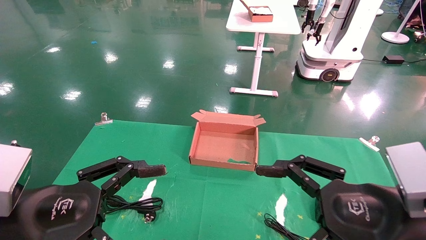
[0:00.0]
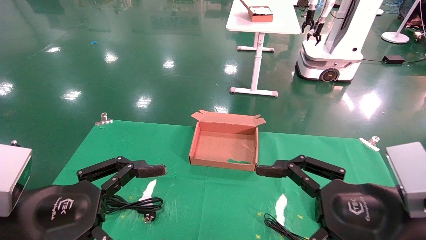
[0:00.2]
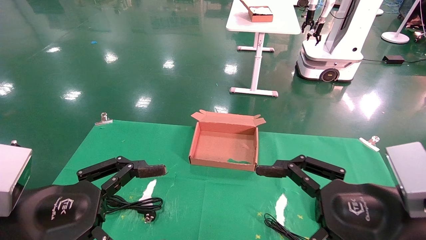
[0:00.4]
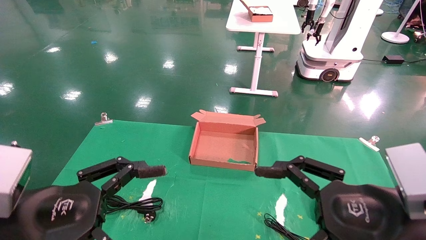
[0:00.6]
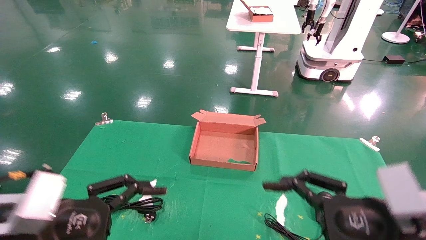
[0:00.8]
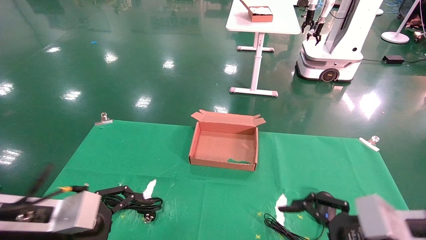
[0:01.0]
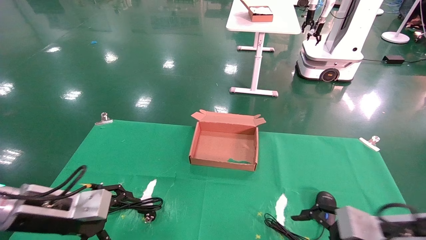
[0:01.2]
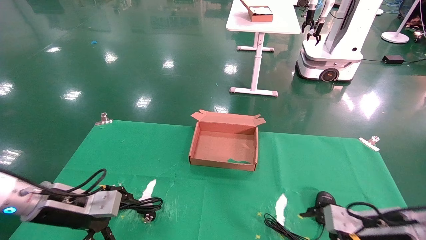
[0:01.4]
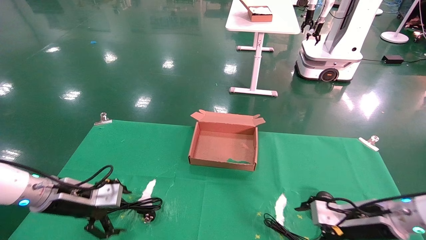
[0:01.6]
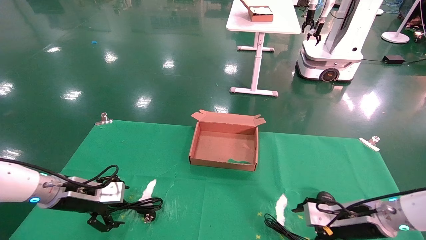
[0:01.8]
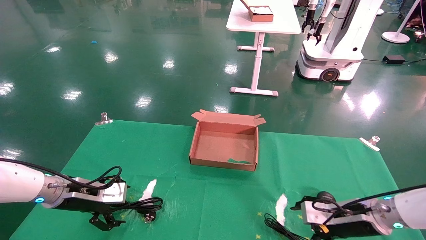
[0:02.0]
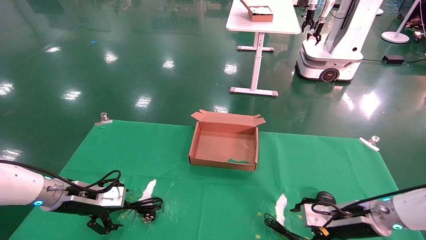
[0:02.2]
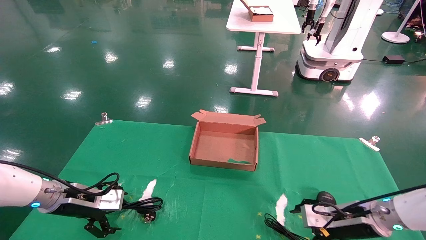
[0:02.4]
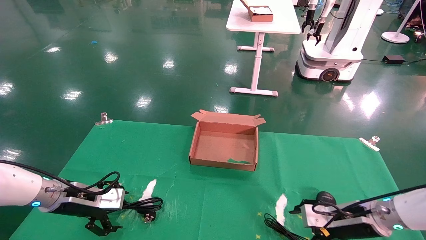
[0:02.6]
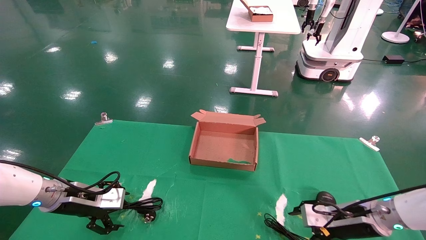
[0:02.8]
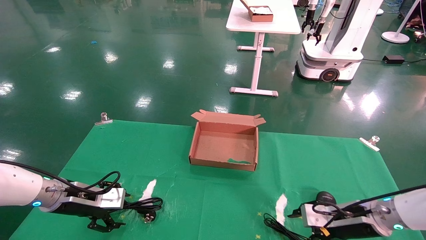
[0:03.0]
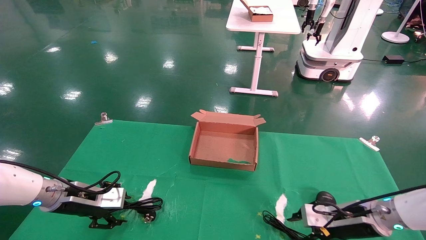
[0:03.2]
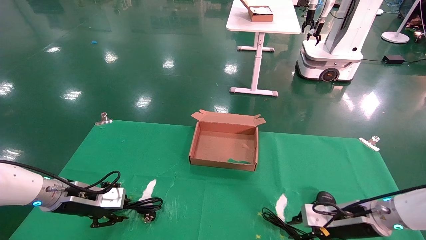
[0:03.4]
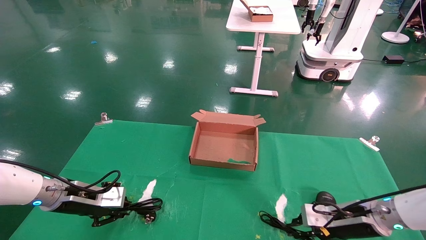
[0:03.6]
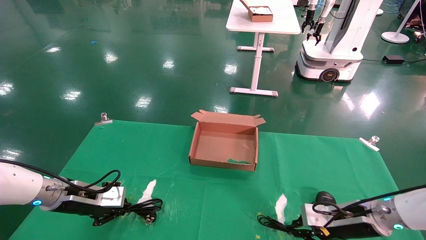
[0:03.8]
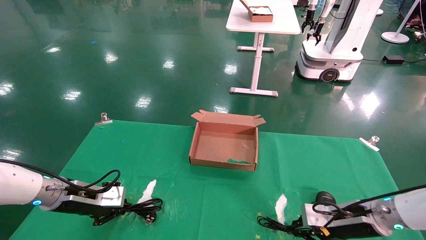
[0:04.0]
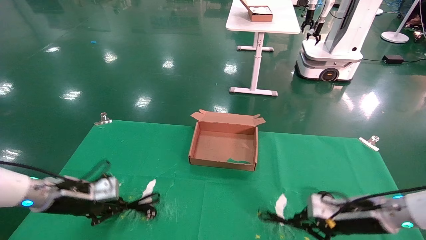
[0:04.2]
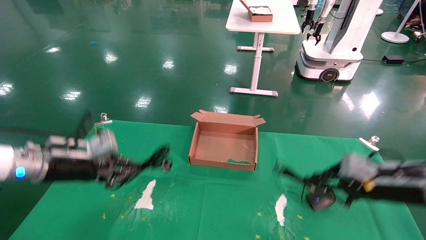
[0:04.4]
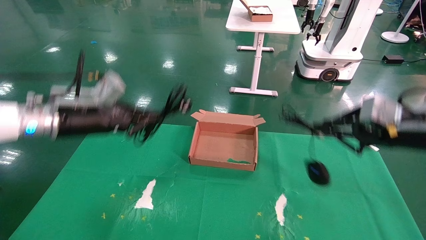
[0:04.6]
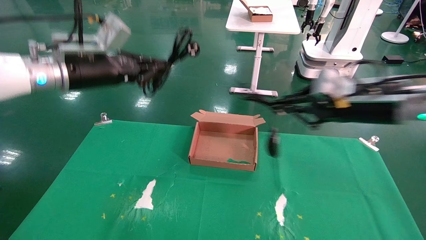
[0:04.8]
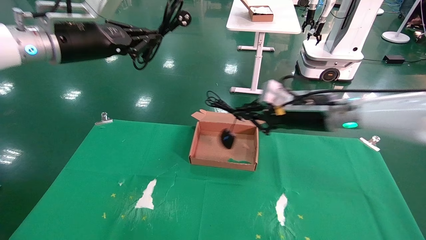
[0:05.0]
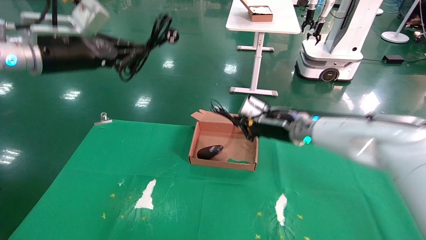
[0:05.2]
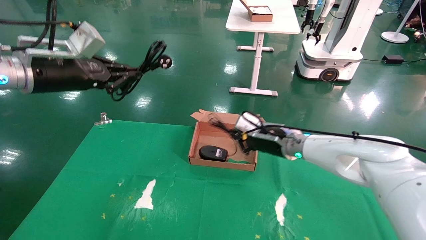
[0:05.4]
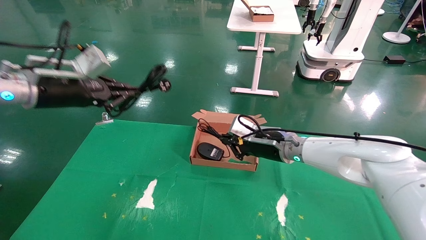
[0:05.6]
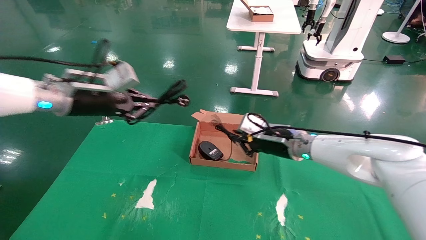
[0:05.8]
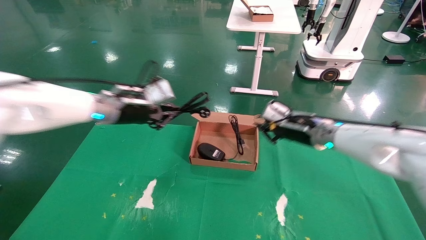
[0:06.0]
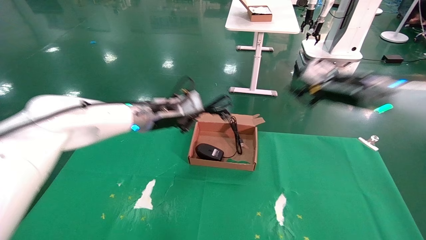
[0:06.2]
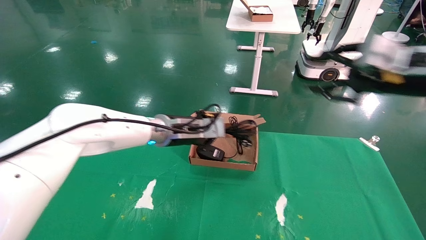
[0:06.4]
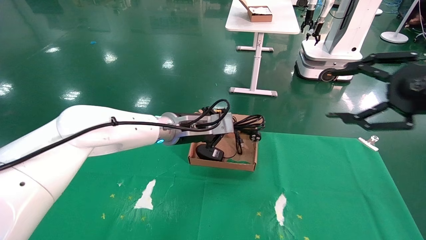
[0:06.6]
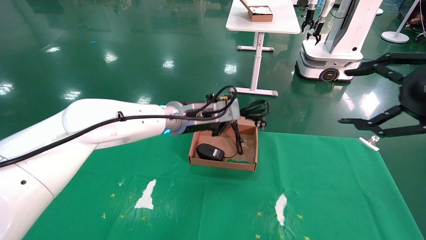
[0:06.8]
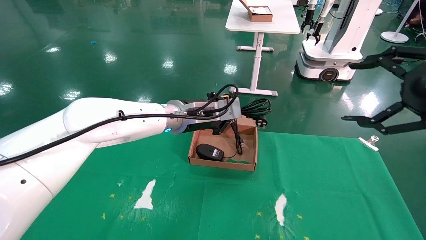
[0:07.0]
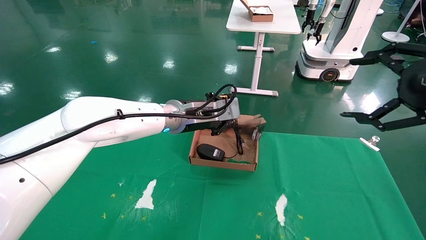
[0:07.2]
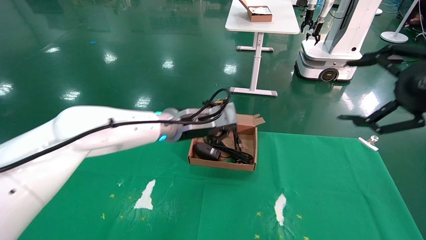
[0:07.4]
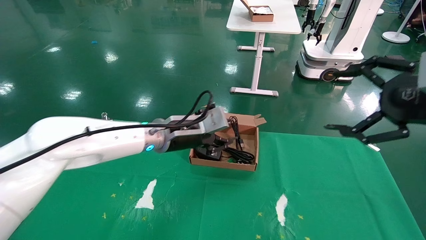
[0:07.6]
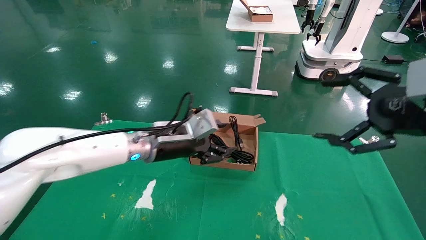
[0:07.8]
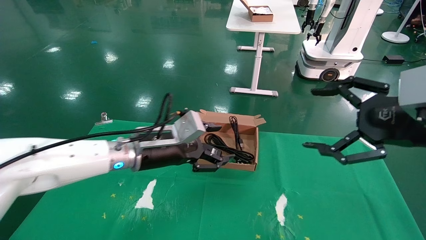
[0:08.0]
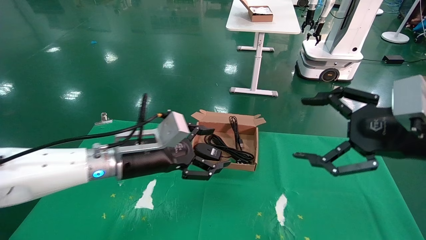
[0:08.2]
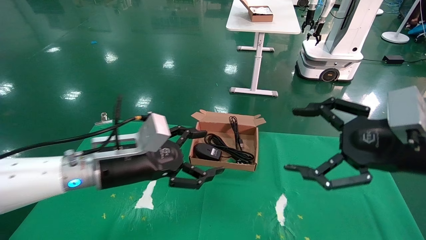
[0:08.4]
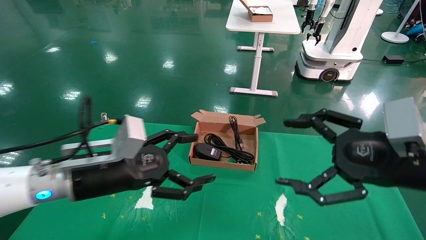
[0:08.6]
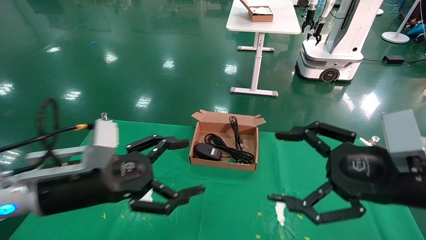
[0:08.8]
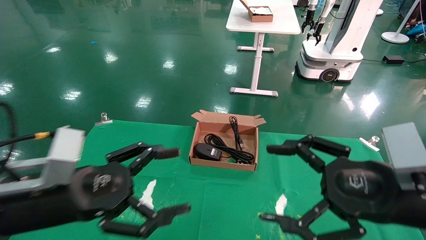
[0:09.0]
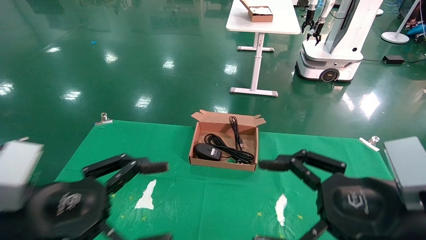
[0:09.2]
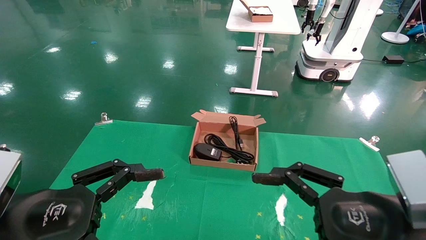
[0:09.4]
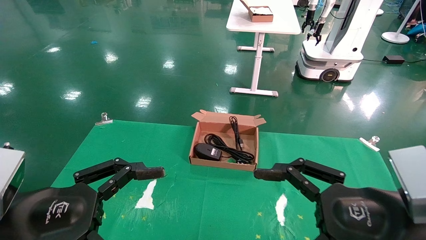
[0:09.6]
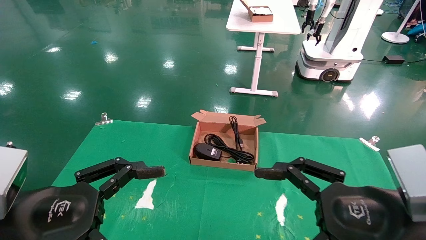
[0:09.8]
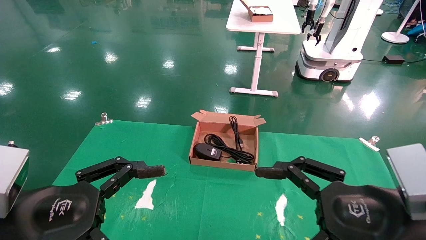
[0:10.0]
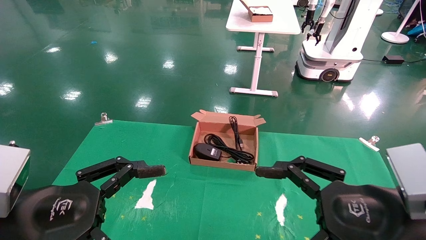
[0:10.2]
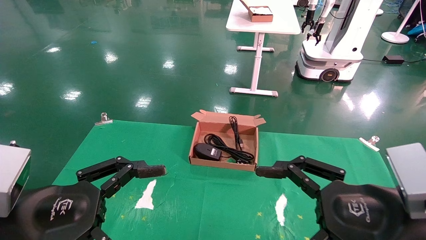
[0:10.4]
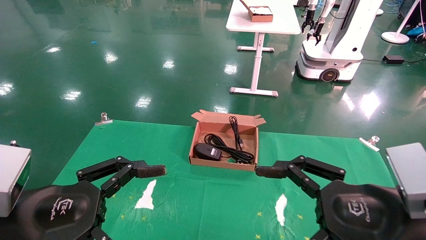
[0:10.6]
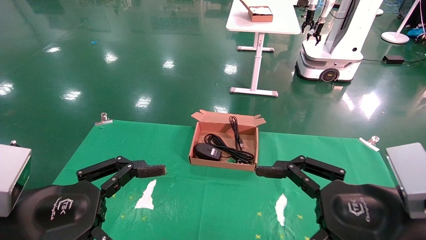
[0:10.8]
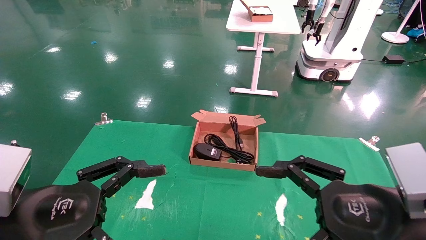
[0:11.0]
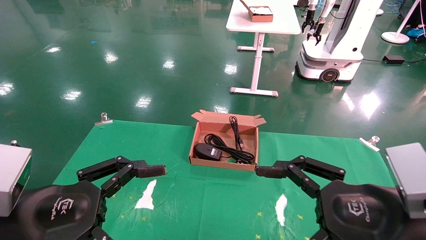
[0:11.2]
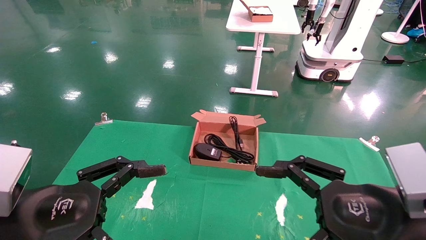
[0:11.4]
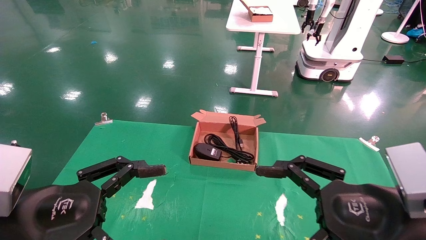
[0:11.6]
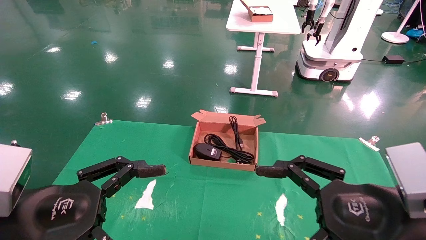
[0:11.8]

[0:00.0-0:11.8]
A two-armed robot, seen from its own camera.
Step, 0:01.0 to 0:03.8: Grab and lift both the mouse and power cord from the accessory packaging area at the same time.
Step, 0:04.0 to 0:08.0: Place the mouse and power cord into the box.
0:00.0 to 0:01.4: The left gripper moves forward, some 15 cm. The right gripper is displaced forward, downward and to the right by approximately 20 cm.
0:01.4 to 0:03.0: Both grippers move forward, about 5 cm.
0:03.0 to 0:04.4: The grippers both shift upward by about 10 cm. The right gripper closes up; the left gripper closes up.
0:04.4 to 0:06.0: The left gripper moves to the right, upward and forward, approximately 15 cm. Meanwhile the right gripper heads to the left, forward and upward, covering about 15 cm.
0:06.0 to 0:07.4: The left gripper is displaced to the right by about 10 cm, while the right gripper moves backward, to the right and upward, some 25 cm, and opens.
0:07.4 to 0:08.8: The right gripper shifts some 15 cm downward and to the left; the left gripper is displaced backward and to the left by about 25 cm, and opens.
0:08.8 to 0:10.4: The right gripper shifts by some 5 cm, while the left gripper shifts roughly 10 cm backward.
0:10.4 to 0:11.8: The two grippers keep their place.
